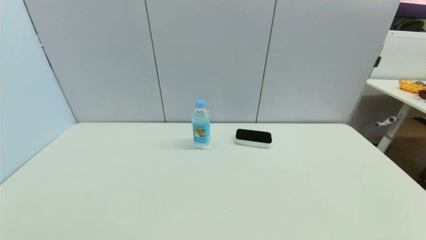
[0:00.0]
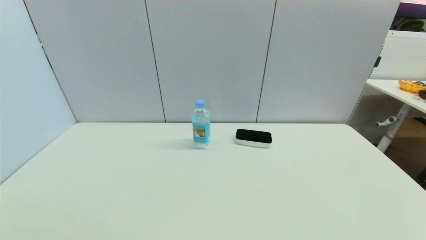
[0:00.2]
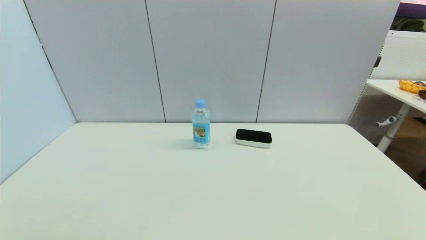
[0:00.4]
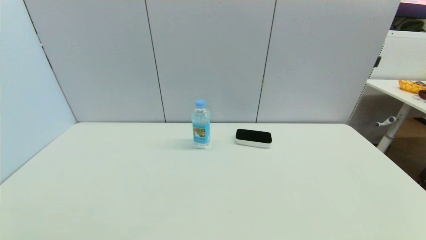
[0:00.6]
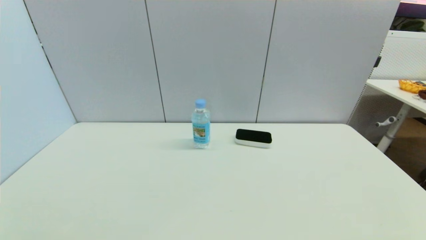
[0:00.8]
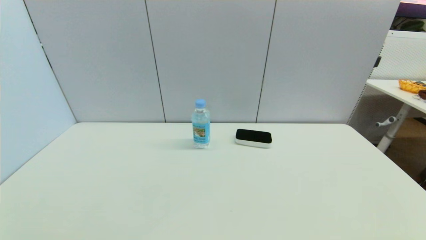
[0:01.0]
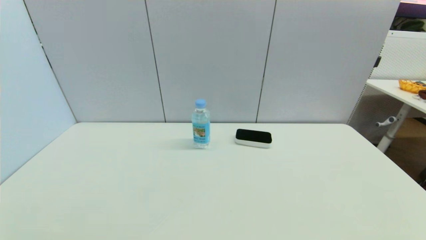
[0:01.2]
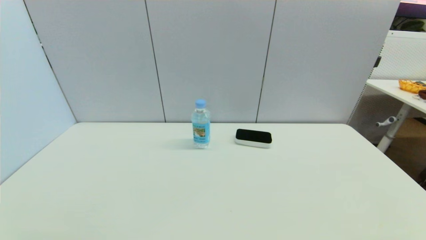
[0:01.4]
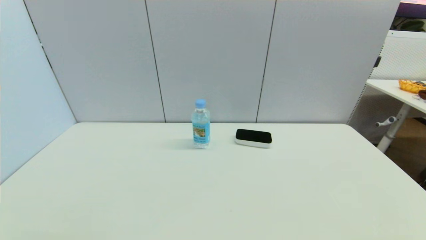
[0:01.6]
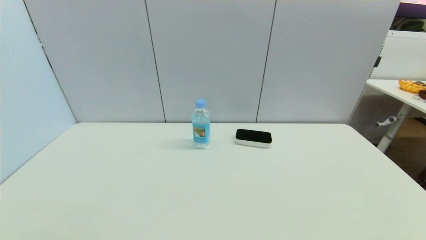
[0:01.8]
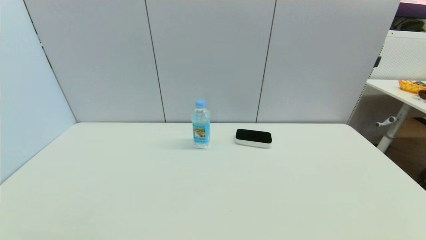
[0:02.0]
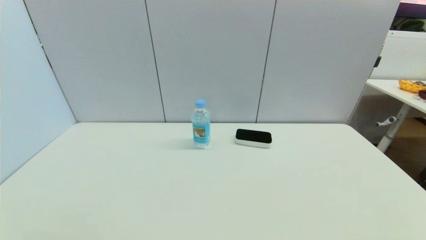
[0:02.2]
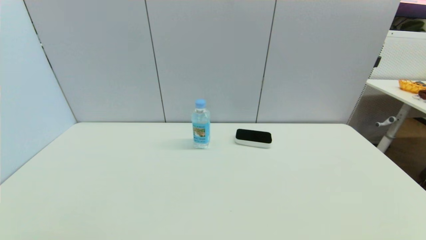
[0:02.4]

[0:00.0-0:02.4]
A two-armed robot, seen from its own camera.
0:01.2 to 0:02.4: Both grippers stay put.
